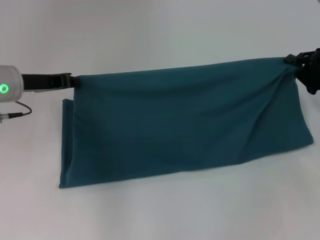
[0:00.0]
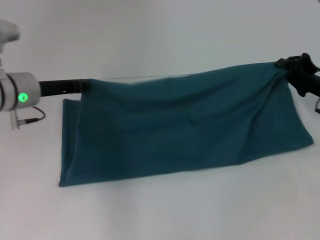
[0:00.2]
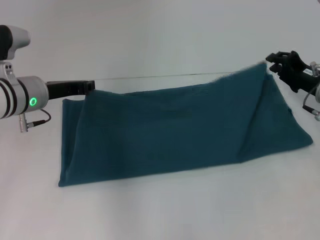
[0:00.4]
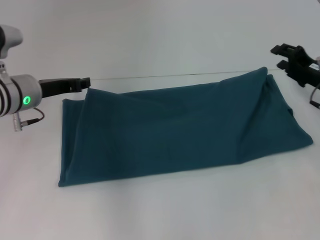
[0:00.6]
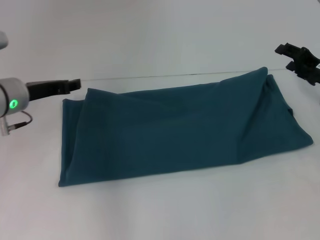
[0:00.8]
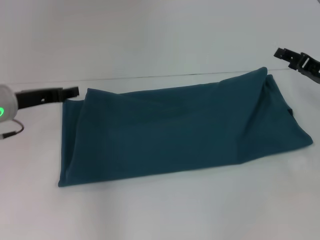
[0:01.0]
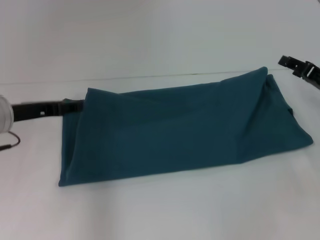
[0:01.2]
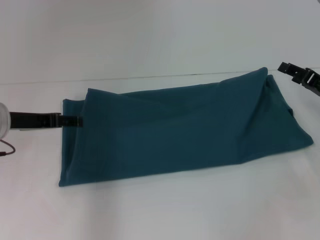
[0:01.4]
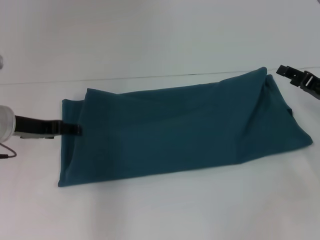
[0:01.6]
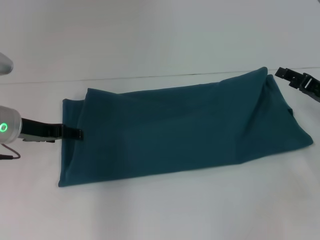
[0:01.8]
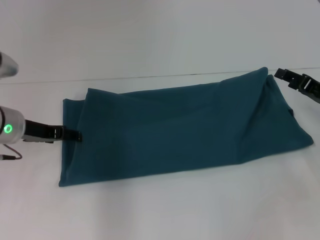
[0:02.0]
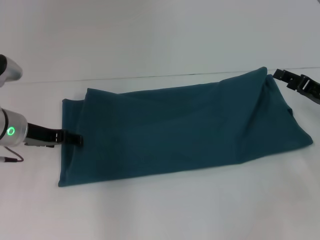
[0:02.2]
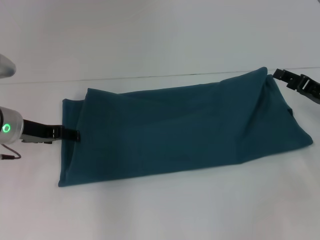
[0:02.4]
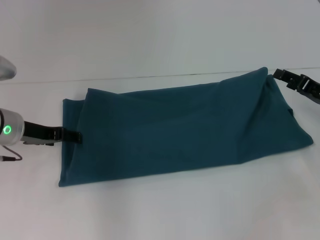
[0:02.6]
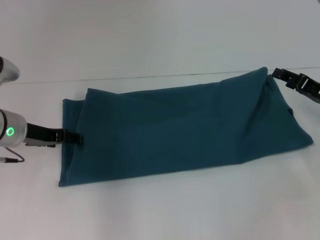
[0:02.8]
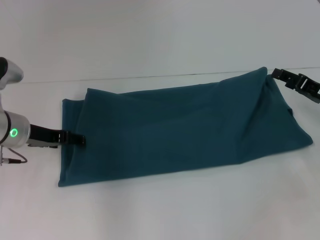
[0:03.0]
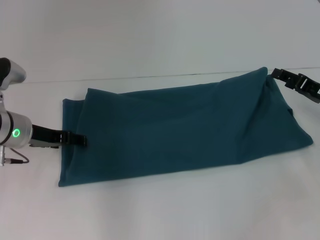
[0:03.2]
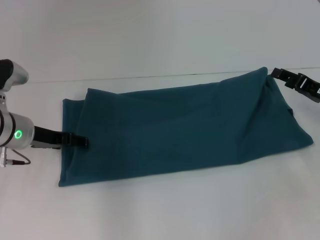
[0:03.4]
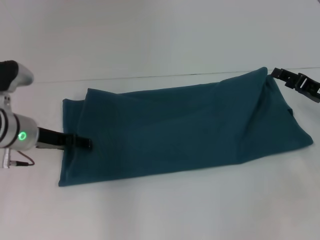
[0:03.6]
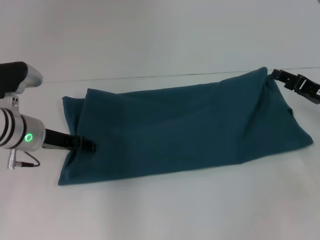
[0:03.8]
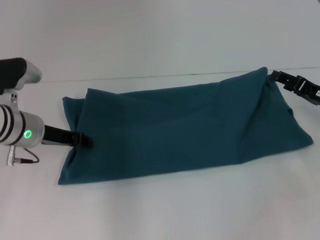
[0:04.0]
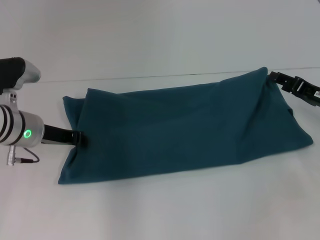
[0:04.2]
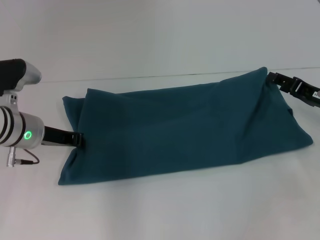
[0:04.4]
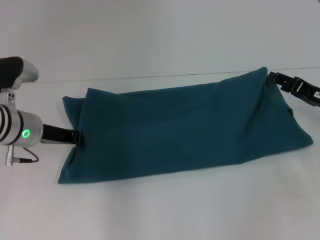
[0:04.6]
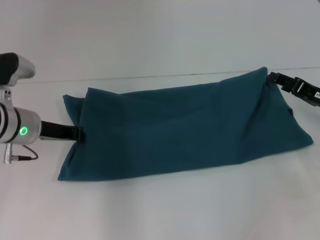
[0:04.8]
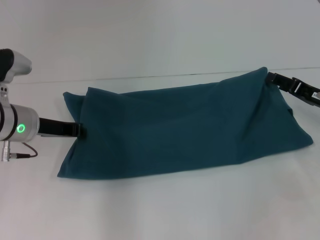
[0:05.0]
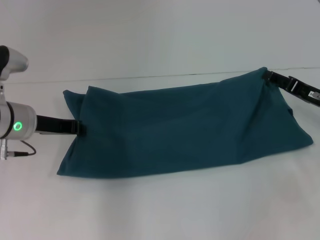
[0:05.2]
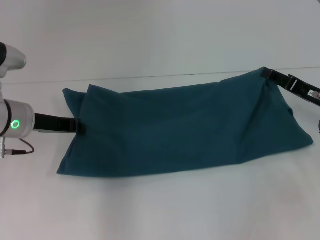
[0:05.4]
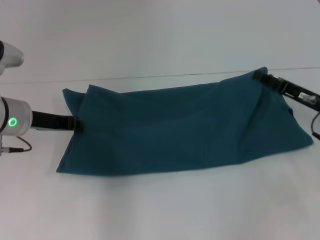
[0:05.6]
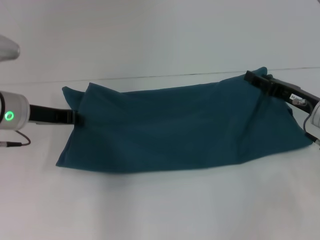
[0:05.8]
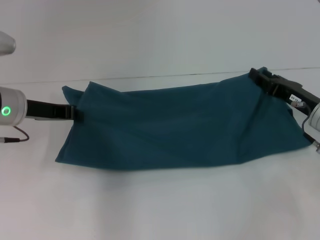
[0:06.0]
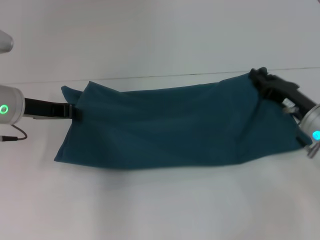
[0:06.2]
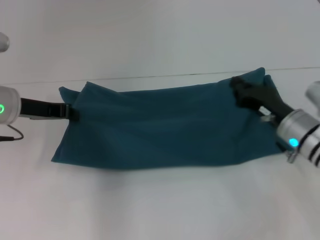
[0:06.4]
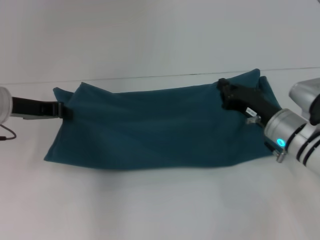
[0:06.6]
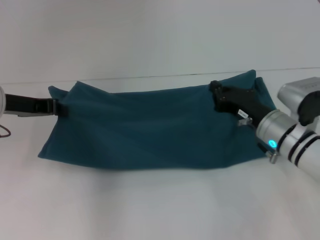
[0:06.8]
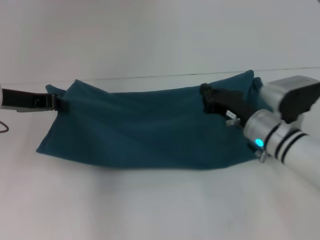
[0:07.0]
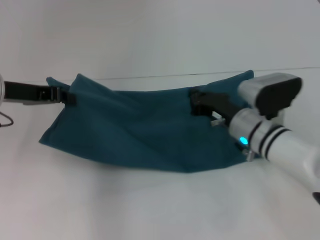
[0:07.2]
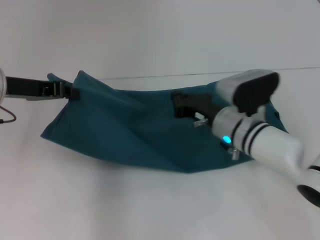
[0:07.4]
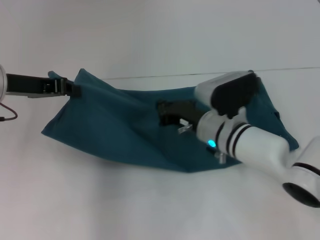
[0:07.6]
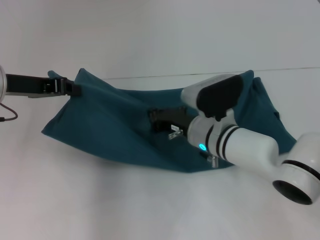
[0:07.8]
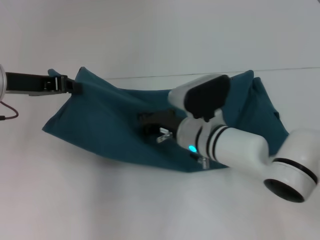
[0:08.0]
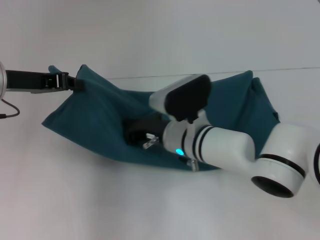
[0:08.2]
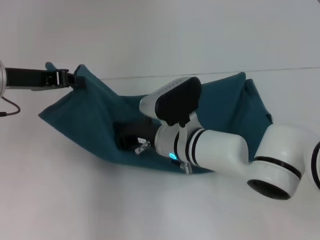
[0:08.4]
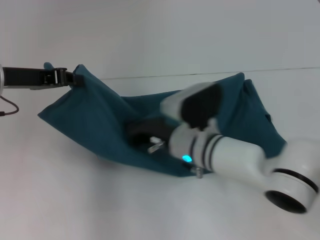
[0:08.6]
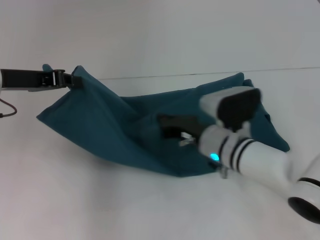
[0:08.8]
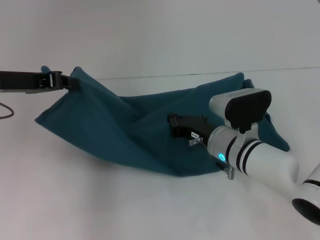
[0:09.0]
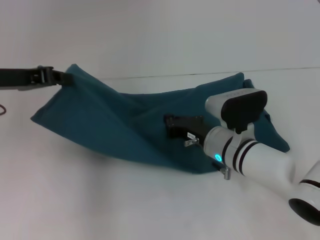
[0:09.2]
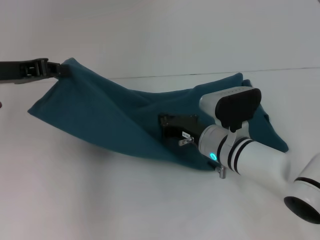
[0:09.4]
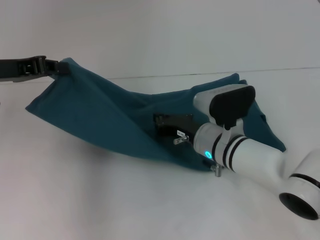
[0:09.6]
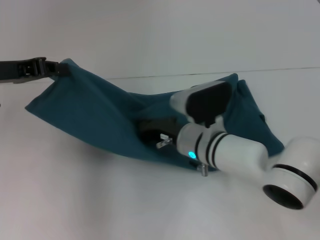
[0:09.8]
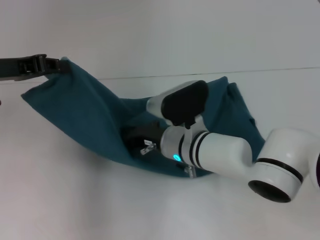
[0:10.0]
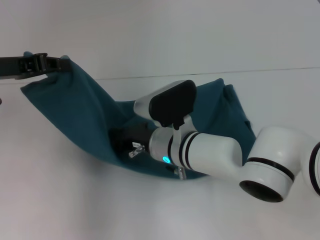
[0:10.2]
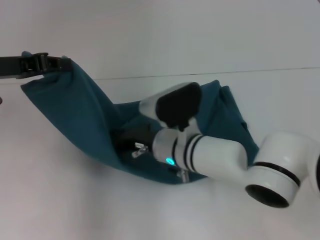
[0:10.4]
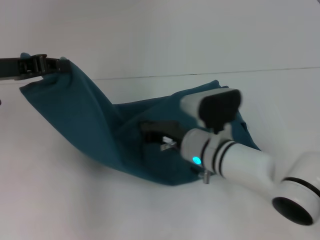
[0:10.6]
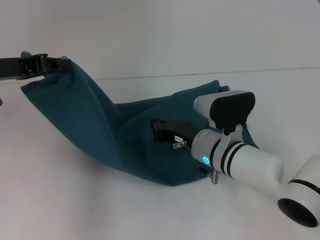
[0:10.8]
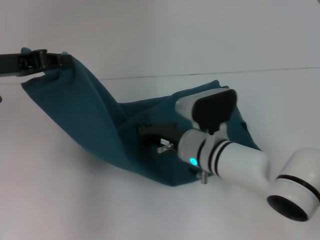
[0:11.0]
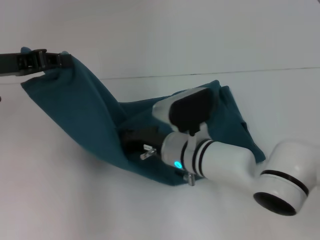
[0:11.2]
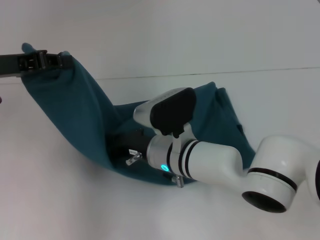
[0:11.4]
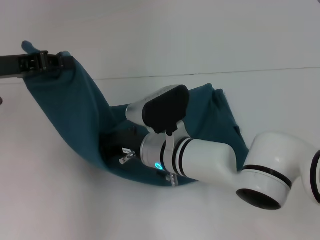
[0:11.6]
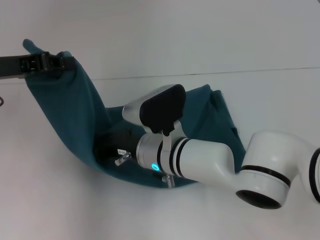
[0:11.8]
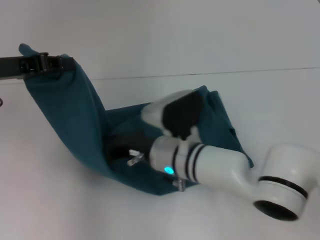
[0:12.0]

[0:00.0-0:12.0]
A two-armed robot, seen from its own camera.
Step, 0:01.2 to 0:10.4: Press the middle of the clothes with your right hand.
0:00.0 to 0:01.6: The left gripper opens. The right gripper opens.
0:01.6 to 0:03.0: There are only small adjustments of the grippers.
0:03.0 to 0:04.4: The left gripper closes.
0:04.4 to 0:06.0: The left gripper changes place by some 5 cm.
0:06.0 to 0:07.6: The right gripper heads to the left, covering roughly 15 cm, and closes its fingers.
0:07.6 to 0:09.0: The right gripper reaches approximately 5 cm to the left, then returns.
0:09.0 to 0:10.4: The right gripper goes approximately 10 cm to the left.
0:10.4 to 0:12.0: The right gripper moves approximately 5 cm to the right and comes back.

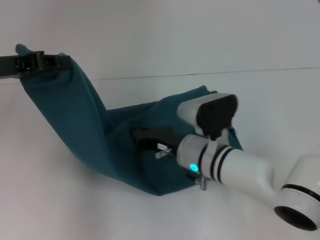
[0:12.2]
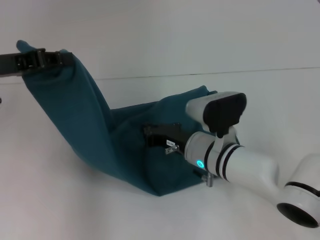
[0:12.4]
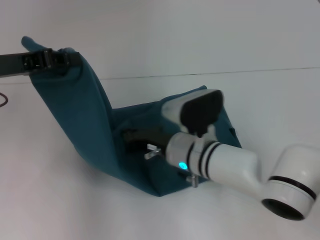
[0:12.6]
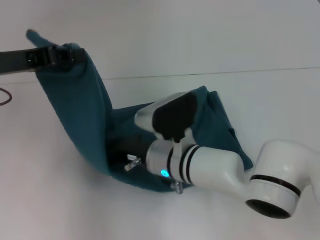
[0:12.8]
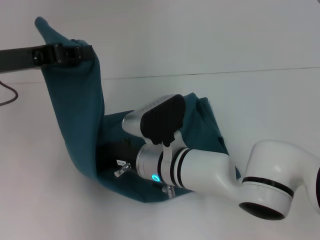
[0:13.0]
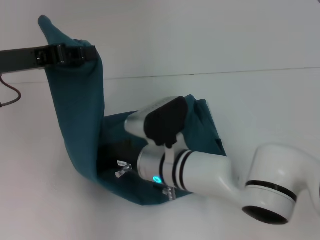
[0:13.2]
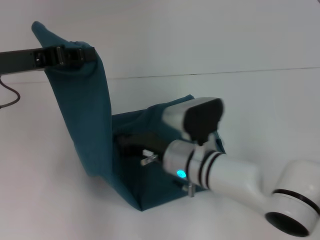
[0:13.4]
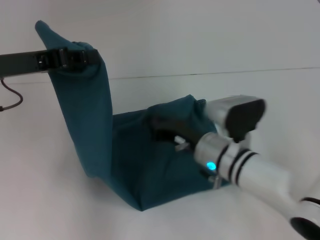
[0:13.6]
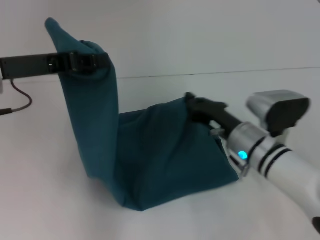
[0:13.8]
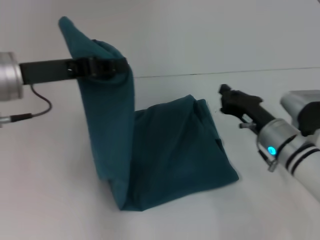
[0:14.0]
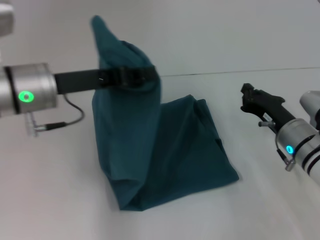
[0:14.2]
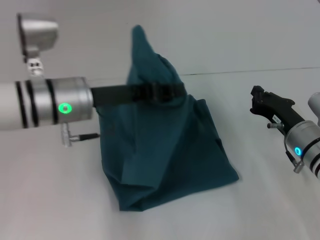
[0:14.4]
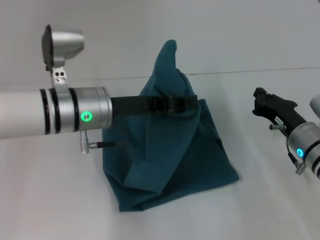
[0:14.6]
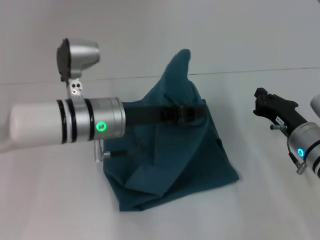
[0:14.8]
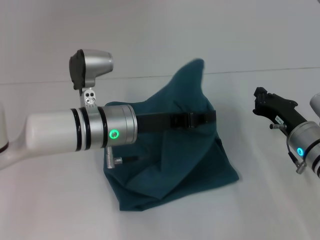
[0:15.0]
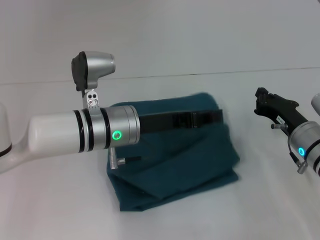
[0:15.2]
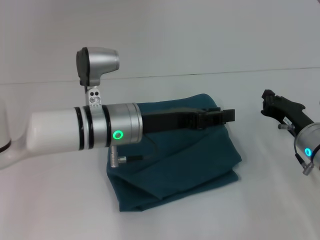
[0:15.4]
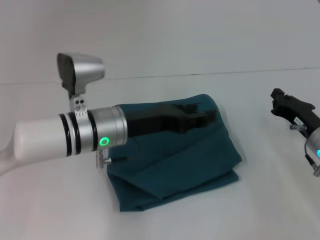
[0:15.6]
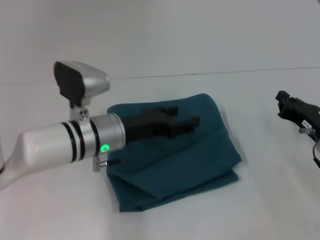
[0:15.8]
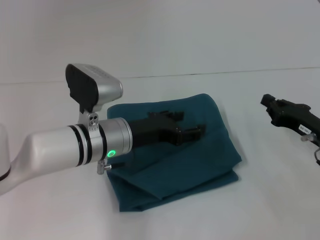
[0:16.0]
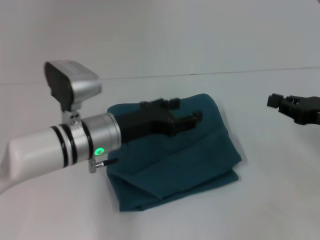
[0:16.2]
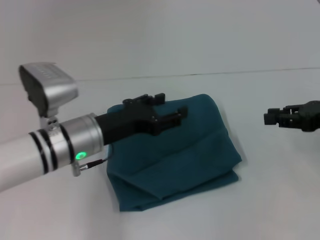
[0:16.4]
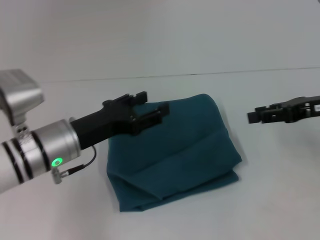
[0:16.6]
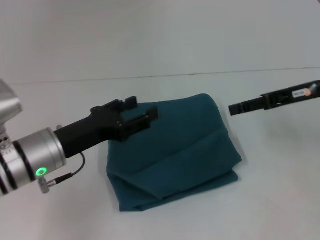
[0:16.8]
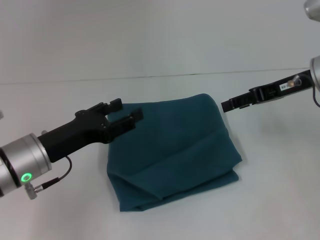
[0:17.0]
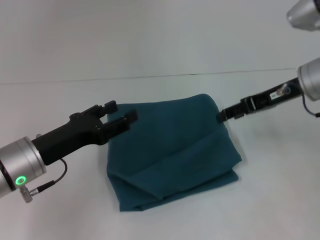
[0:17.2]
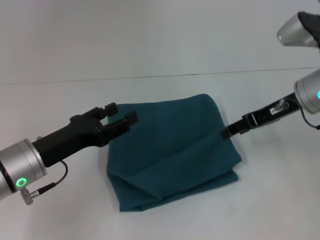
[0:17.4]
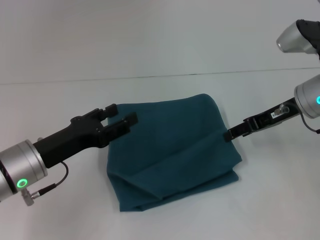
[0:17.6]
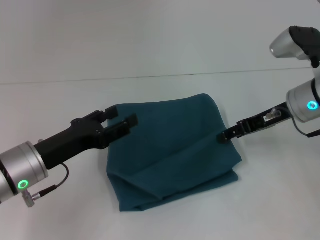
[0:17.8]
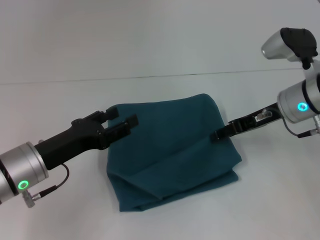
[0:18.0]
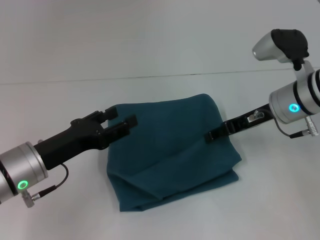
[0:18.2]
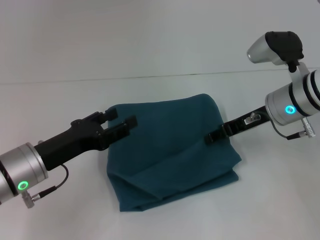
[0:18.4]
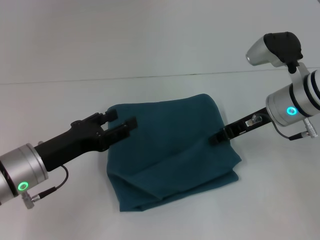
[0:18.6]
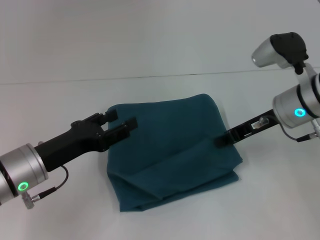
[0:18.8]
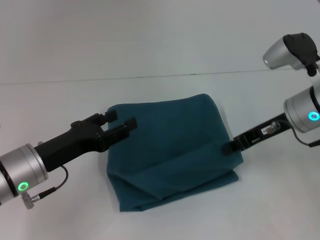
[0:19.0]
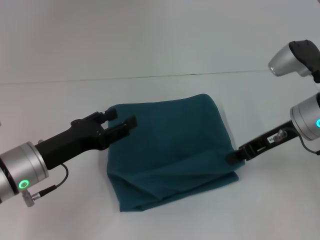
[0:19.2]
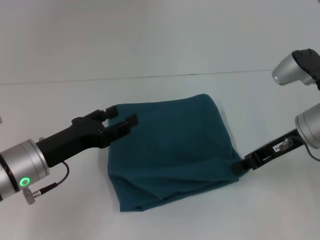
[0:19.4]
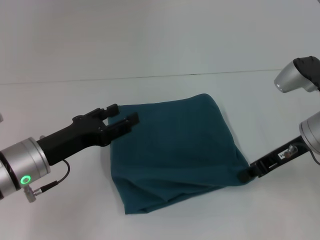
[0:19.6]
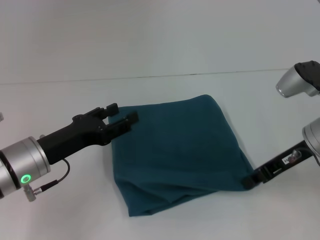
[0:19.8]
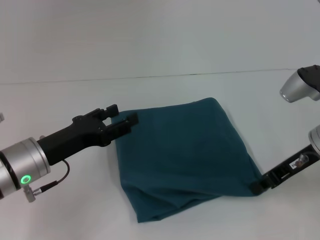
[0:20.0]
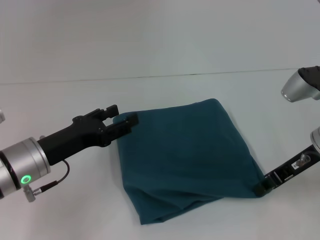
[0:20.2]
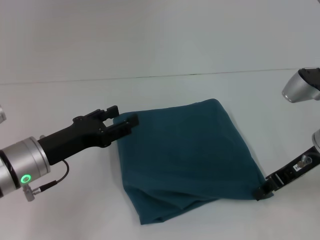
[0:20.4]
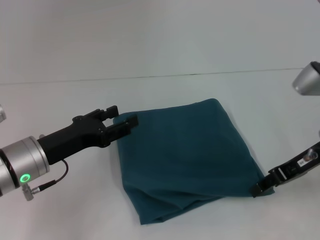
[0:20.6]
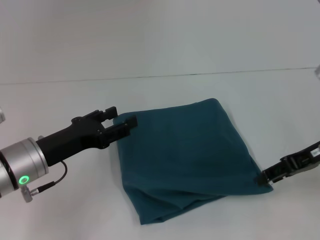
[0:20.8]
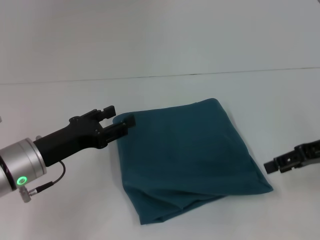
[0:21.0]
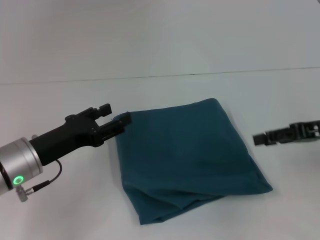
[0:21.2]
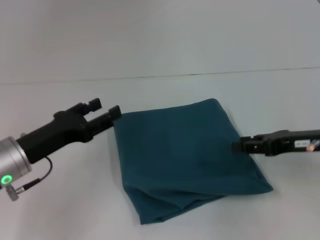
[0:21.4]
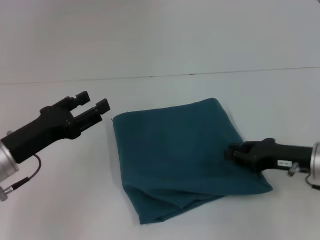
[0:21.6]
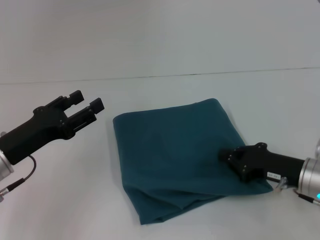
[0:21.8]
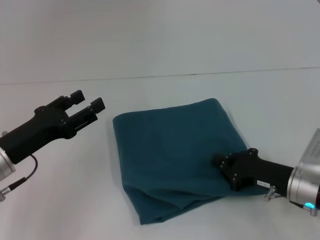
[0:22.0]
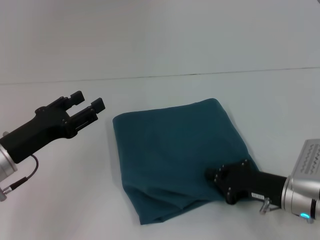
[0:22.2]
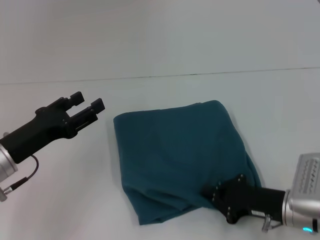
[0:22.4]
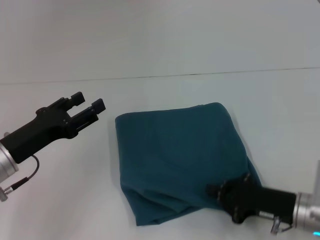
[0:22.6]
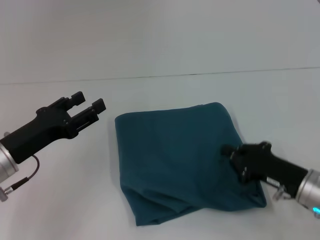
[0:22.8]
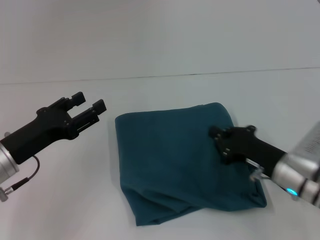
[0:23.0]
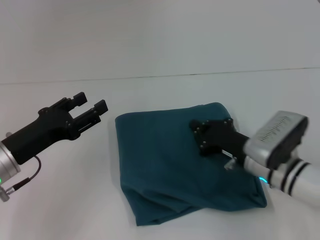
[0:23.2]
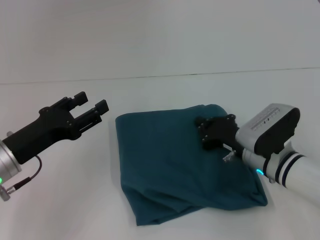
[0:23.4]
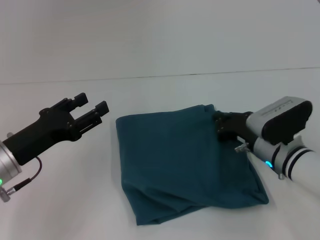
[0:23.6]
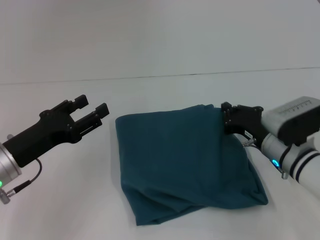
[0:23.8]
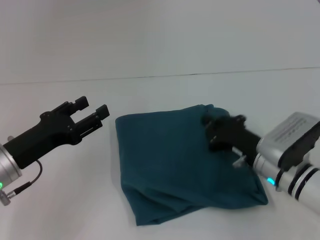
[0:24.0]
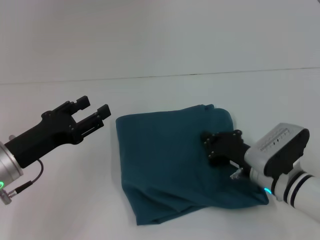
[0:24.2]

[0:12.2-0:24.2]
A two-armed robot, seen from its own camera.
Step, 0:12.2 to 0:15.4: Fold the clothes to the left.
0:12.2 to 0:13.8: The right gripper travels to the right by some 10 cm.
0:13.8 to 0:15.2: The left gripper moves to the right and downward, roughly 20 cm. The right gripper heads to the right, covering some 10 cm.
0:15.2 to 0:16.6: The left gripper heads to the left, covering roughly 10 cm, and opens up. The right gripper moves upward and to the right, roughly 15 cm.
0:16.6 to 0:18.2: The left gripper shifts by roughly 5 cm, while the right gripper shifts roughly 10 cm to the left, and opens up.
0:18.2 to 0:19.8: The right gripper shifts about 5 cm backward, and closes.
0:19.8 to 0:21.2: The right gripper travels to the right by roughly 5 cm, and opens its fingers.
0:21.2 to 0:22.6: The right gripper is displaced downward, backward and to the left by approximately 20 cm, and closes.
0:22.6 to 0:24.2: The right gripper heads forward and to the left, covering some 10 cm.
